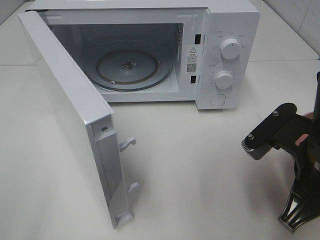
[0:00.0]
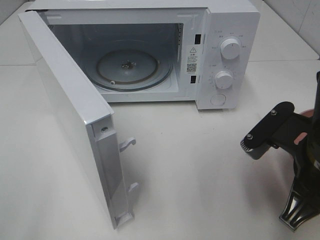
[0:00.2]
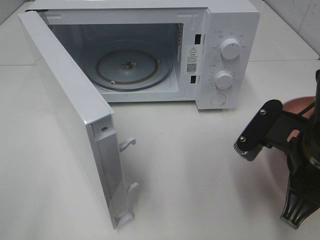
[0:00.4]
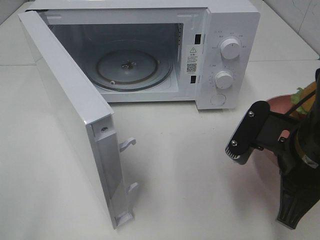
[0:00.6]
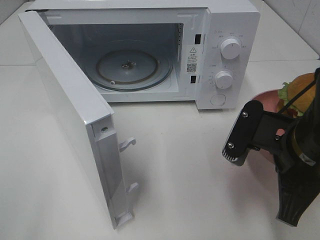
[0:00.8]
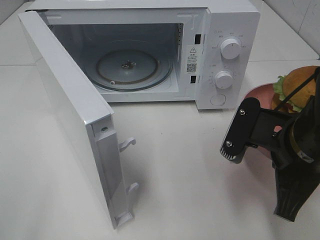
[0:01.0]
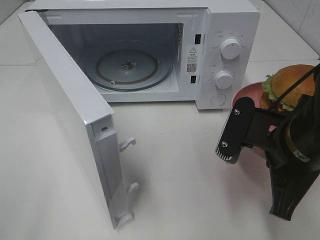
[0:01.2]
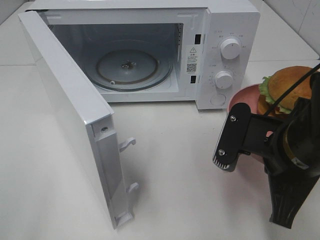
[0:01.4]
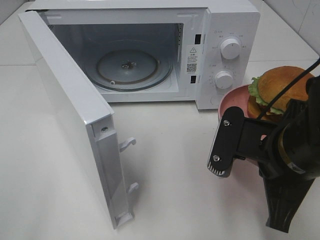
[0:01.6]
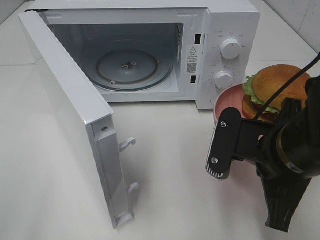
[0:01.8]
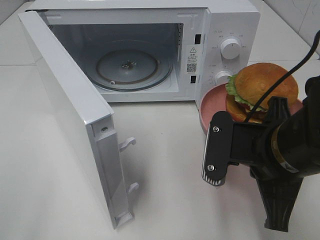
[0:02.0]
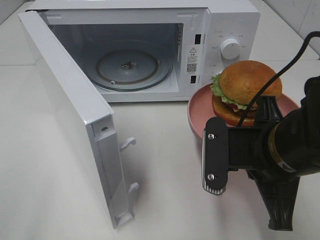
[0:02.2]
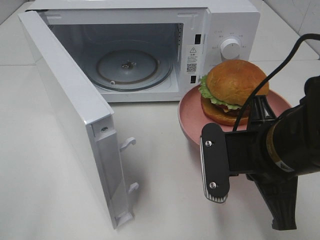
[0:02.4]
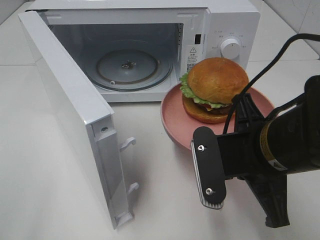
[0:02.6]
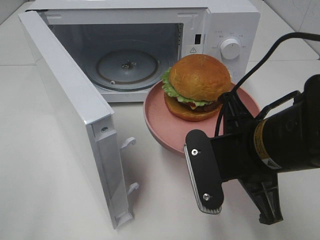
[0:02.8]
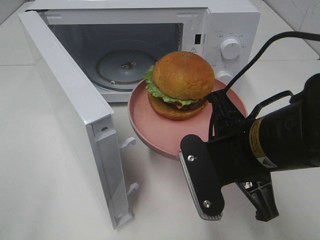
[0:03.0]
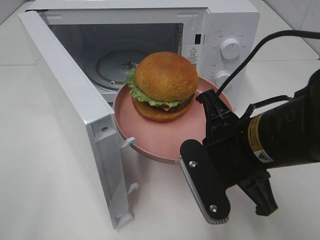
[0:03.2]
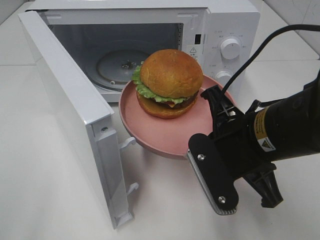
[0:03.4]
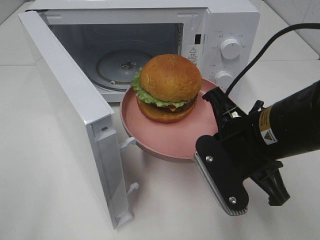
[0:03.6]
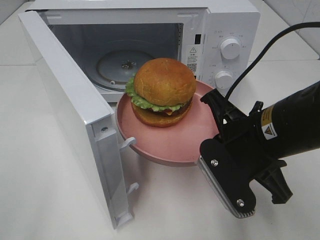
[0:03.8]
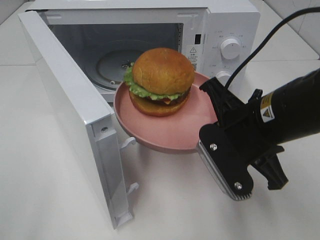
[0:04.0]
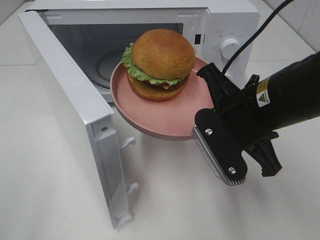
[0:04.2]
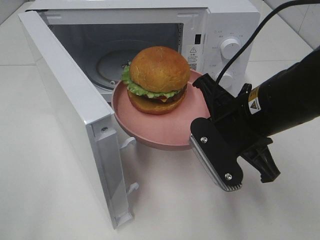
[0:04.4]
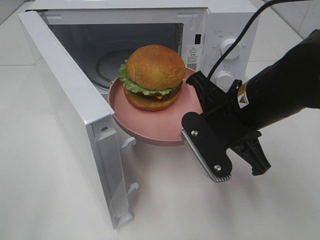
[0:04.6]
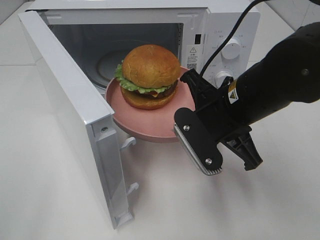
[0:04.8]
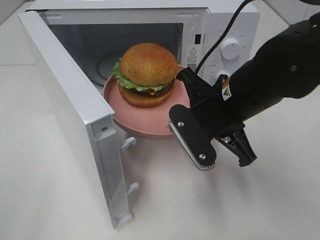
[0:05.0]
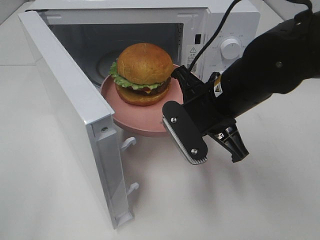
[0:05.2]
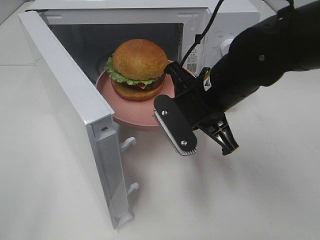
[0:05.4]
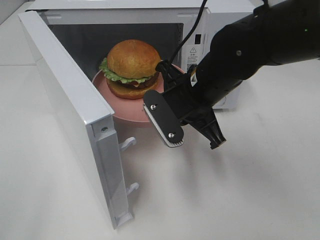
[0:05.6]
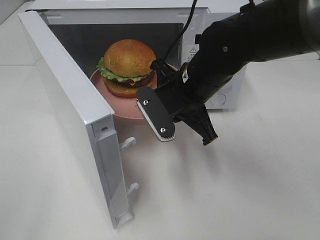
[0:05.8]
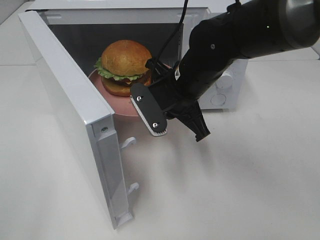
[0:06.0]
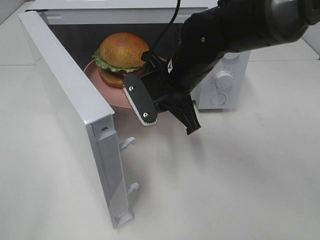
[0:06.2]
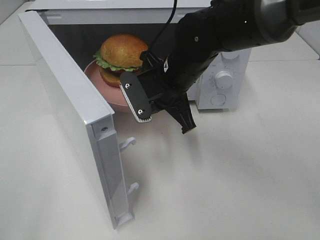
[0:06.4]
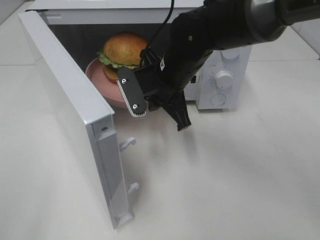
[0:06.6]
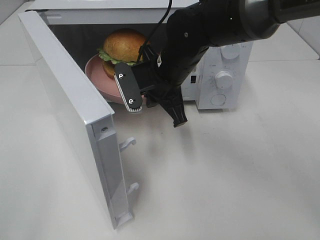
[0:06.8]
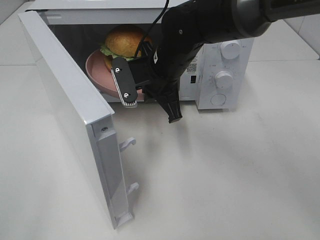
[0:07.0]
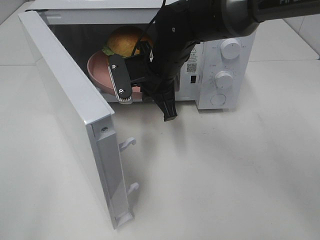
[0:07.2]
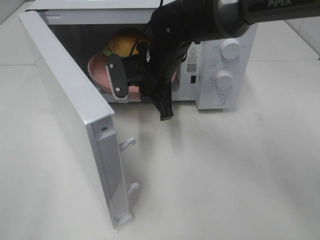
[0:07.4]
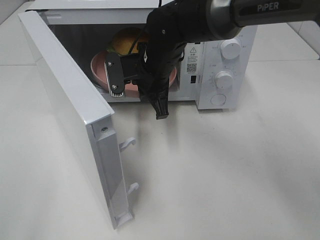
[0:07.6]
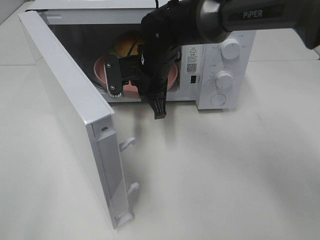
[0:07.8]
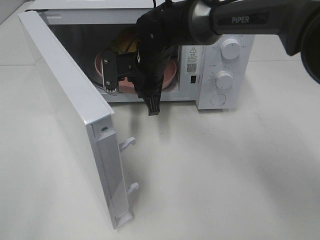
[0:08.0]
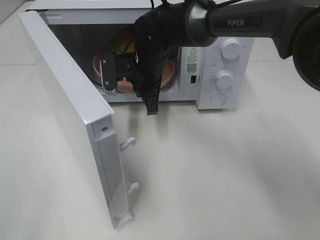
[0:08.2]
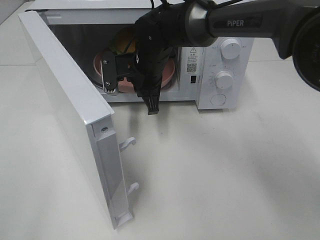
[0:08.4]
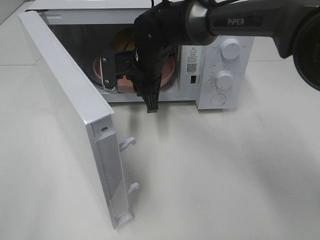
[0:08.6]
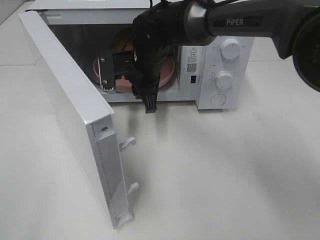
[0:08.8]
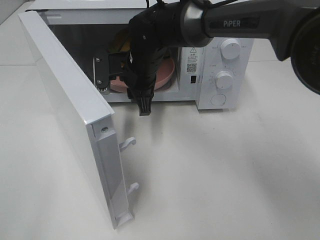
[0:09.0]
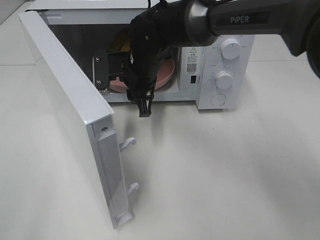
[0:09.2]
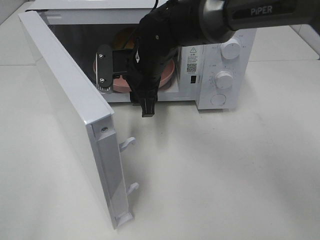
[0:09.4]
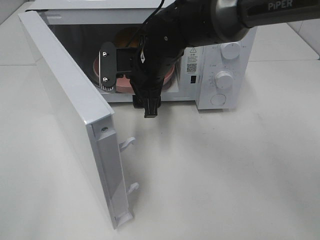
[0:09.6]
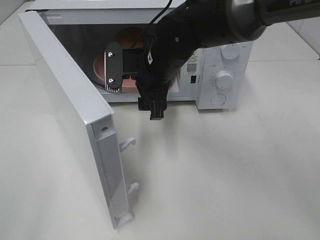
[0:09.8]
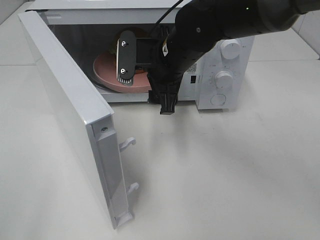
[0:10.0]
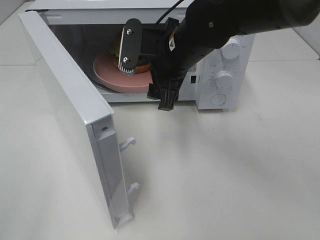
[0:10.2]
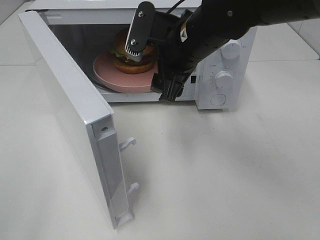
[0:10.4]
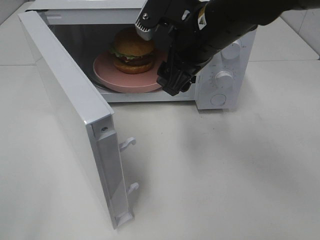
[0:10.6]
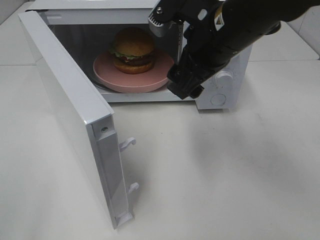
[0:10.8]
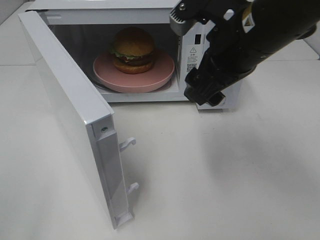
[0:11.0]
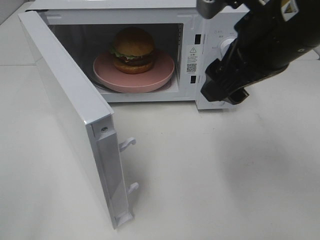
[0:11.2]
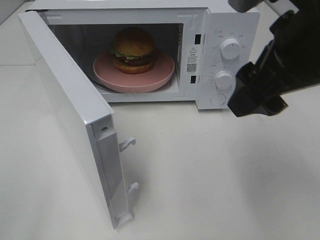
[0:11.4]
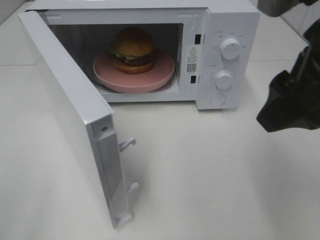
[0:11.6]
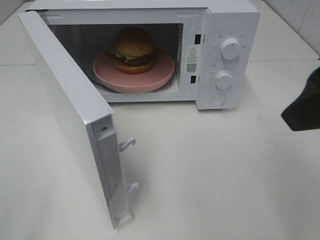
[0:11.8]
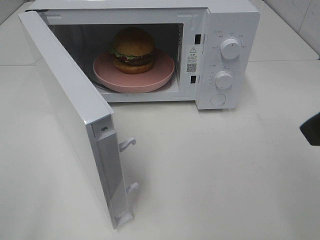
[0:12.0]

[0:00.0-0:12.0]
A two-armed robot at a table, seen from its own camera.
Task of the whole recording: Heat the burger.
Step, 0:00.0 to 0:08.6: Right hand: place the plate in the microwave.
0:03.0 to 0:04.4: The right gripper changes place by approximately 5 cm.
0:04.4 to 0:06.0: The right gripper heads forward and to the left, covering about 10 cm.
0:06.0 to 0:07.6: The right gripper heads forward, covering approximately 5 cm.
0:07.6 to 0:09.0: The right gripper opens.
0:09.0 to 0:10.4: The right gripper is displaced upward, to the right and backward by about 15 cm, and opens up.
0:10.4 to 0:12.0: The right gripper is displaced backward, to the right and upward by about 25 cm.

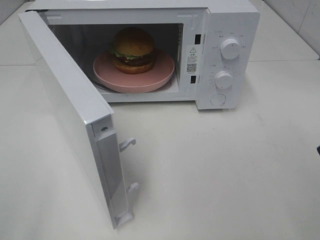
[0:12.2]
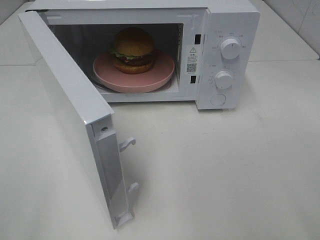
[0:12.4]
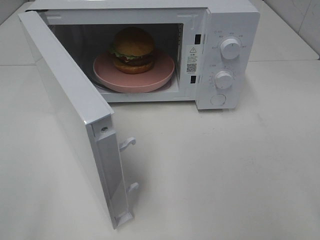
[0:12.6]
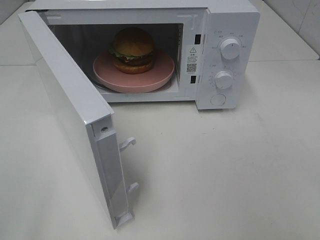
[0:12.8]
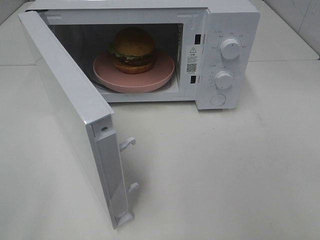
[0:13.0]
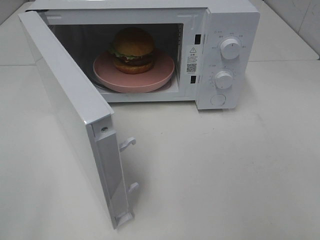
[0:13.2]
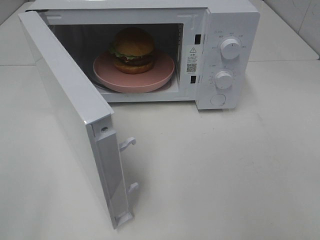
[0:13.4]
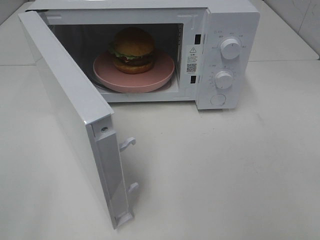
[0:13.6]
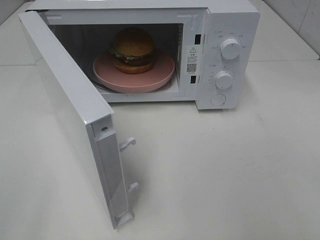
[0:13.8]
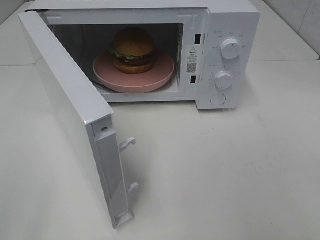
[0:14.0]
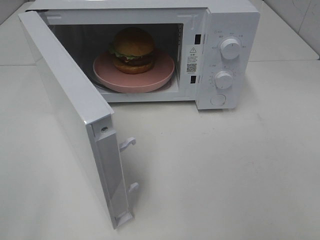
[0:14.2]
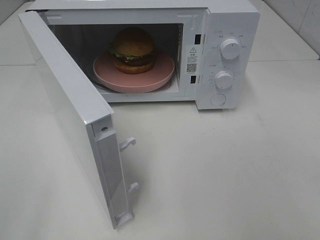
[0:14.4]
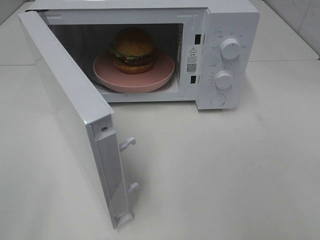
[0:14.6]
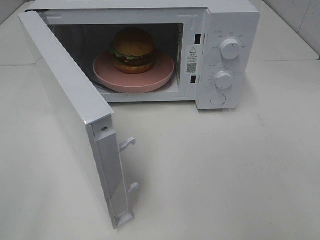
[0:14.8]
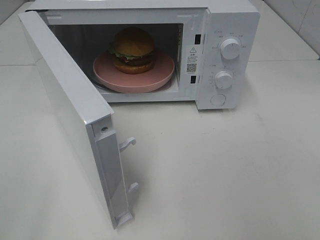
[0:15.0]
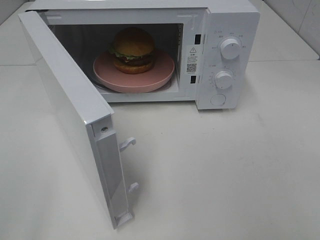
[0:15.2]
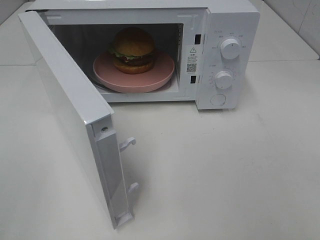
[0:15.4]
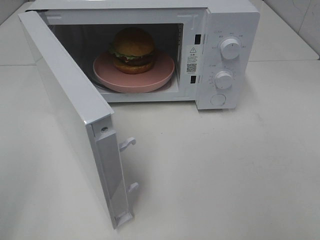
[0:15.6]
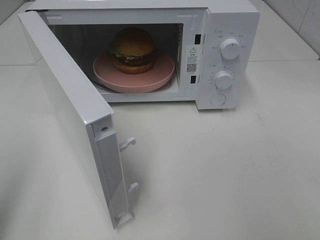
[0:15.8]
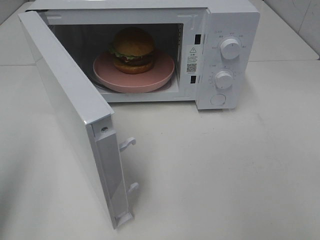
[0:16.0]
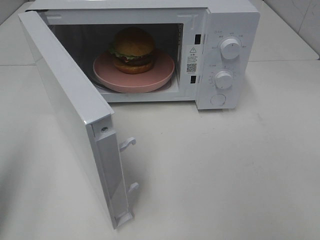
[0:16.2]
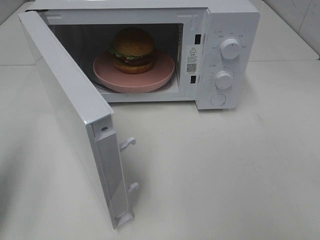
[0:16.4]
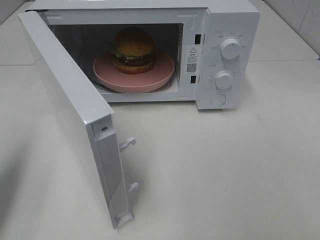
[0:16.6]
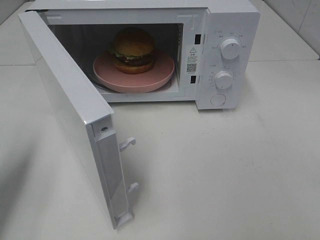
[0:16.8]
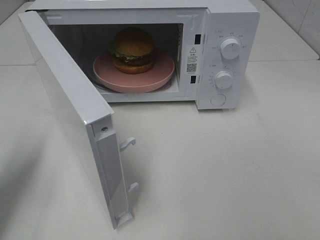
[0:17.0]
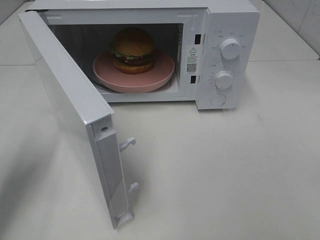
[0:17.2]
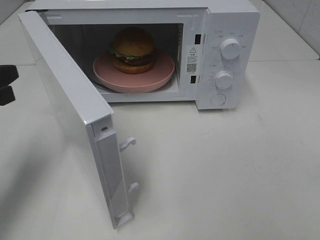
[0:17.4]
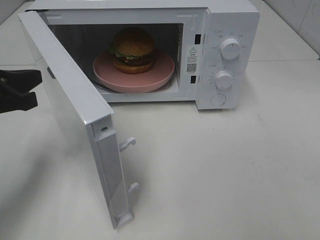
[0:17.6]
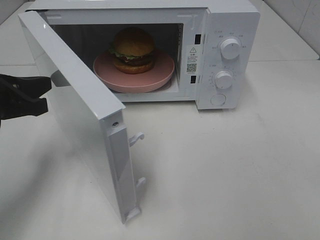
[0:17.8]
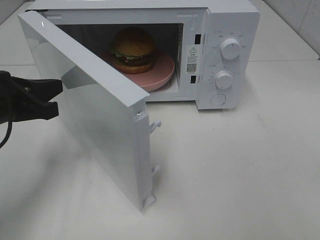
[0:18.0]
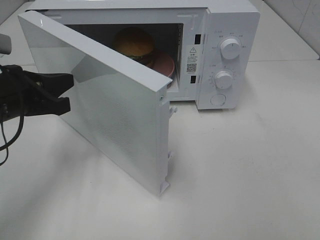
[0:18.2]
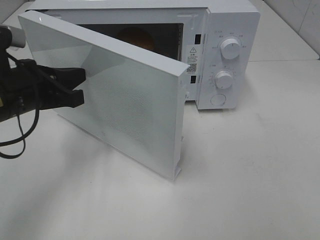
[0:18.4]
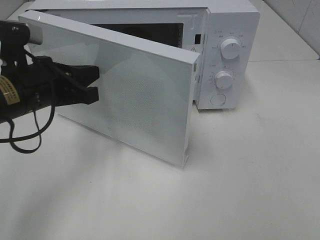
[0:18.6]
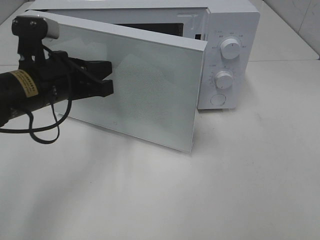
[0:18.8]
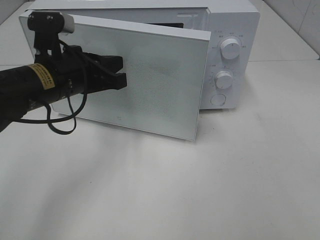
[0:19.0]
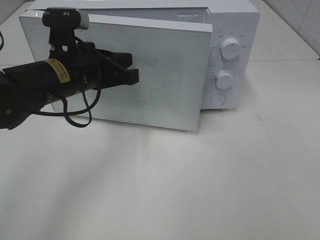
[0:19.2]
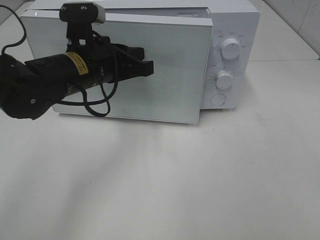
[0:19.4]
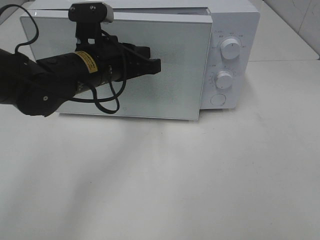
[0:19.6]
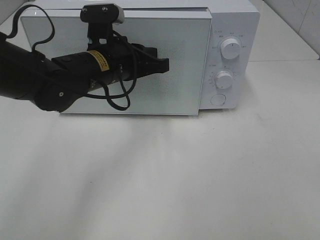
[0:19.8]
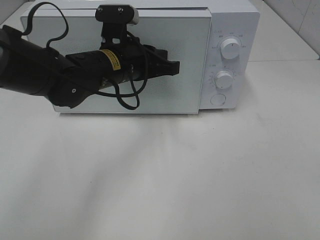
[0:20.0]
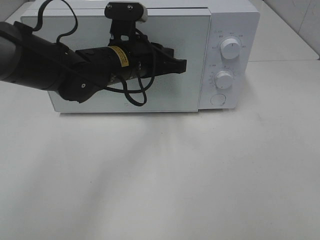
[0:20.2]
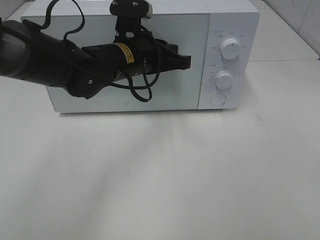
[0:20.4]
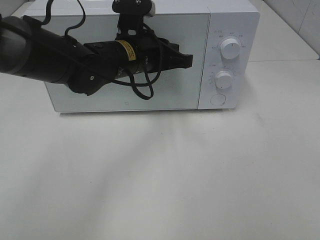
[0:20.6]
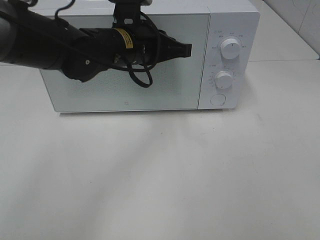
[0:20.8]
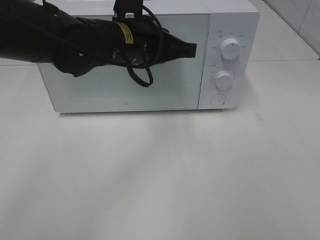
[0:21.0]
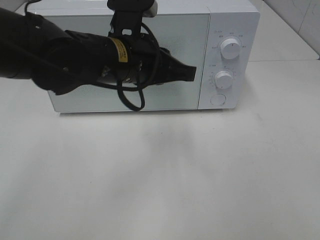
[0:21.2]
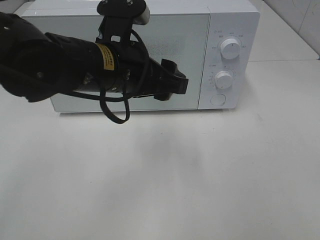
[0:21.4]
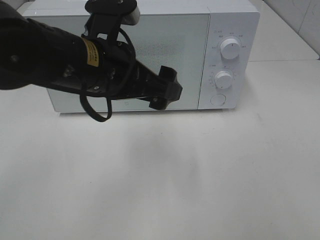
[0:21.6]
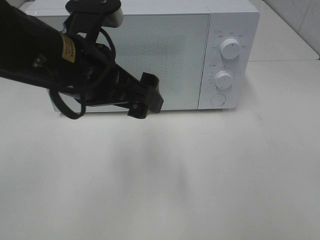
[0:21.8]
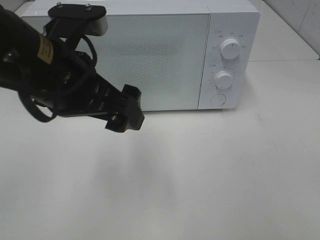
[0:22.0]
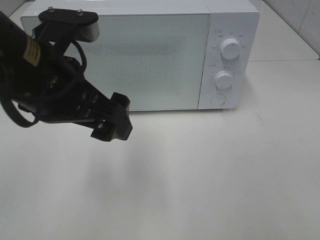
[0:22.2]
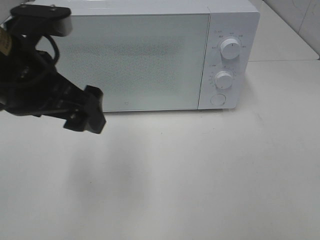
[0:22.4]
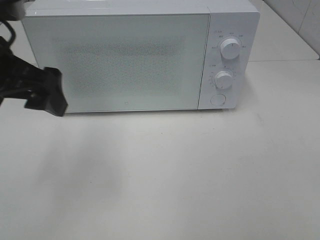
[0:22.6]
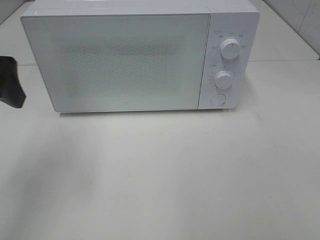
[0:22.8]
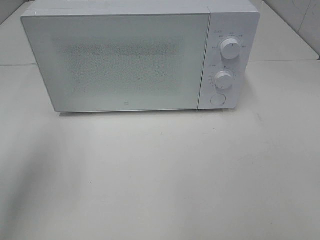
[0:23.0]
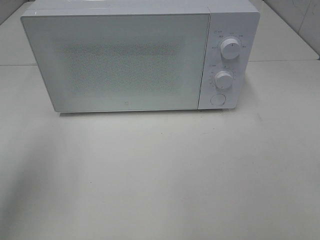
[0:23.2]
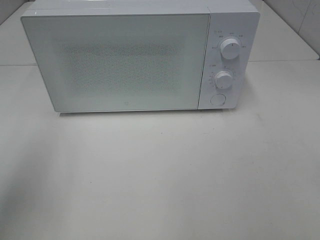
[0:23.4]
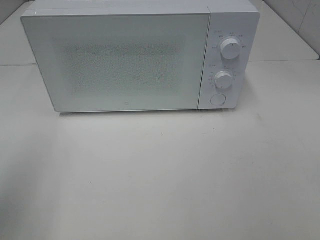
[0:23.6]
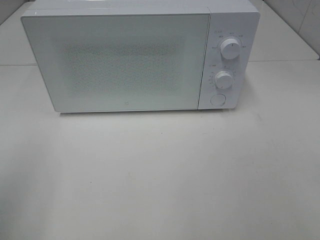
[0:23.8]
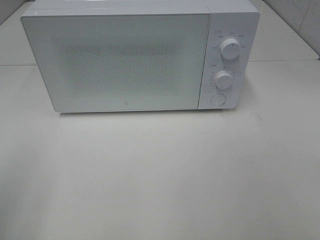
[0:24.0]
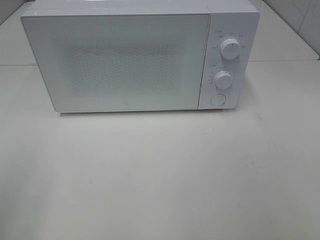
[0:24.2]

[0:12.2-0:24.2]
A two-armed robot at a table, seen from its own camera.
Task of the whole recording: Heat the burger.
Step, 0:12.2 to 0:20.8: Left hand: close the microwave door.
0:15.2 to 0:16.6: The left gripper is displaced forward by some 15 cm, and closes its fingers.
0:16.6 to 0:18.2: The left gripper goes approximately 15 cm to the right, forward and downward.
0:18.2 to 0:19.8: The left gripper heads to the right and forward, covering roughly 15 cm.
0:19.8 to 0:21.2: The left gripper changes place by roughly 5 cm.
0:21.2 to 0:22.6: The left gripper travels to the left and upward by some 20 cm, and opens its fingers.
0:22.6 to 0:24.2: The left gripper shifts approximately 20 cm backward and to the left.
